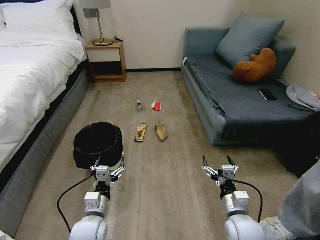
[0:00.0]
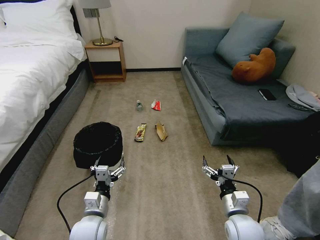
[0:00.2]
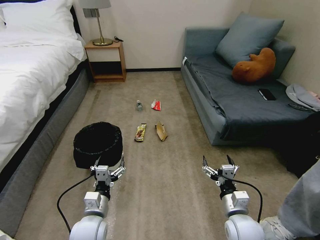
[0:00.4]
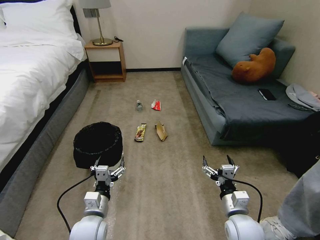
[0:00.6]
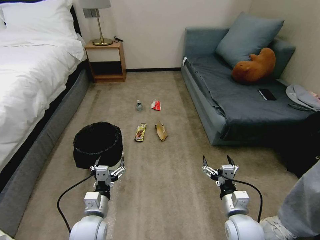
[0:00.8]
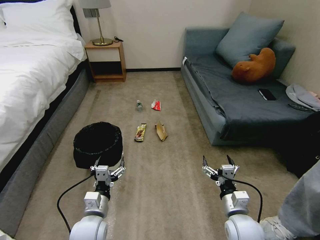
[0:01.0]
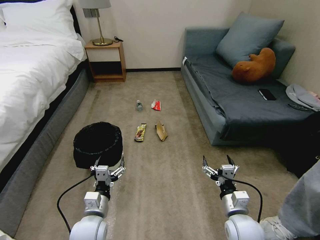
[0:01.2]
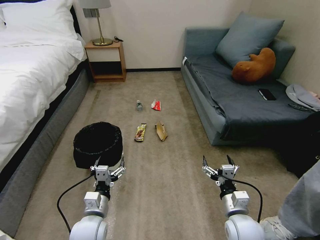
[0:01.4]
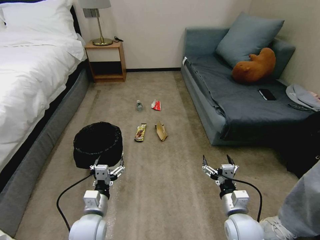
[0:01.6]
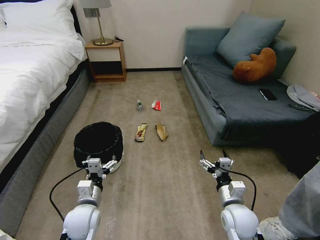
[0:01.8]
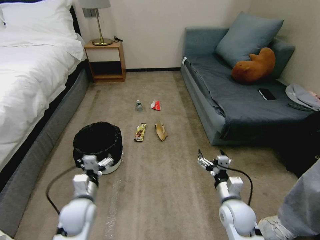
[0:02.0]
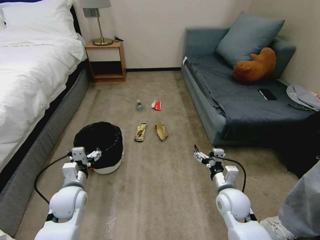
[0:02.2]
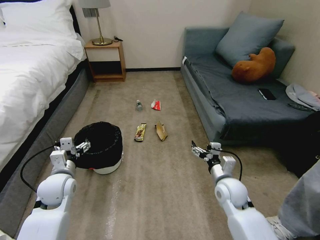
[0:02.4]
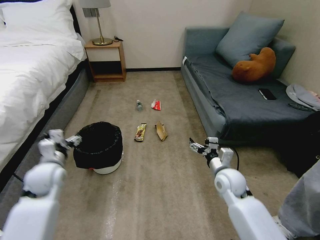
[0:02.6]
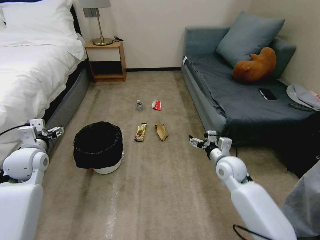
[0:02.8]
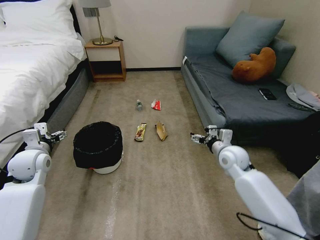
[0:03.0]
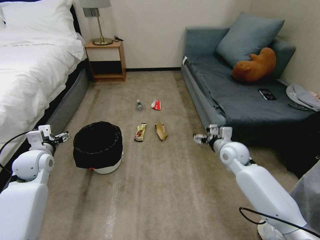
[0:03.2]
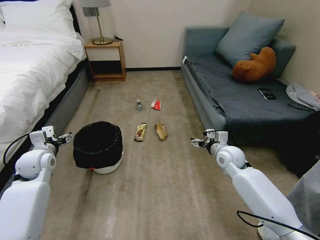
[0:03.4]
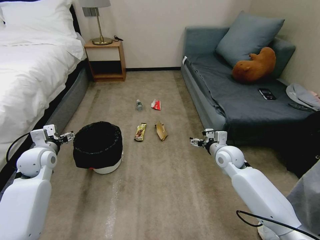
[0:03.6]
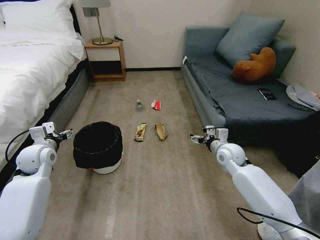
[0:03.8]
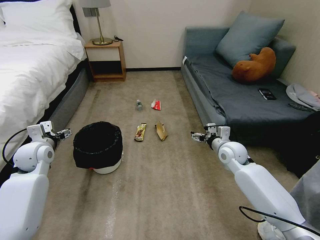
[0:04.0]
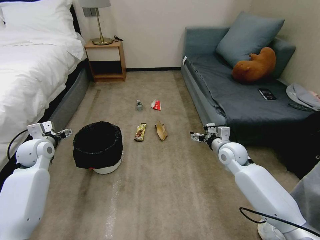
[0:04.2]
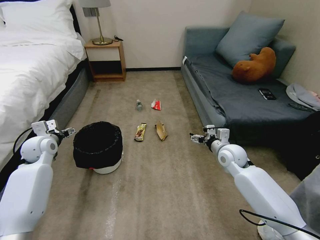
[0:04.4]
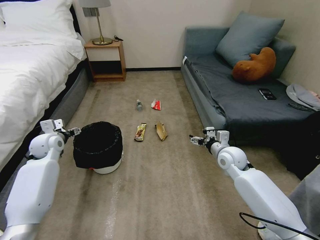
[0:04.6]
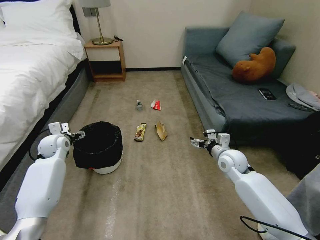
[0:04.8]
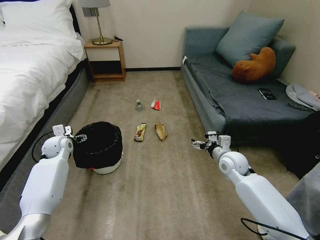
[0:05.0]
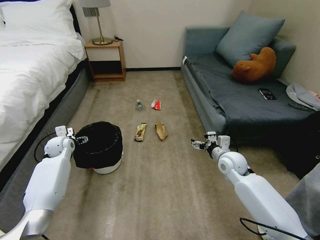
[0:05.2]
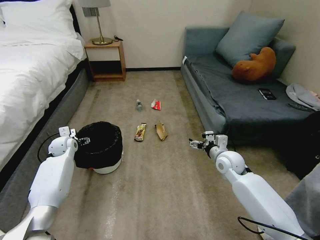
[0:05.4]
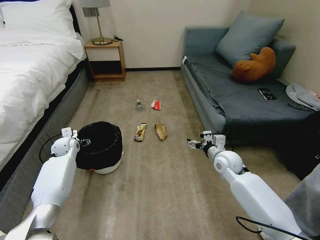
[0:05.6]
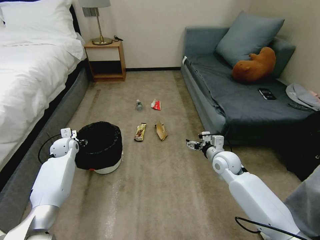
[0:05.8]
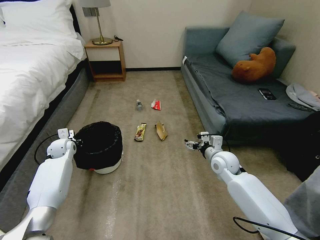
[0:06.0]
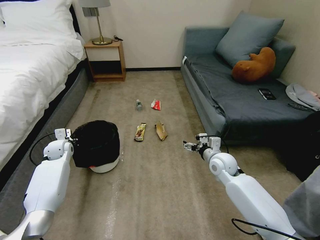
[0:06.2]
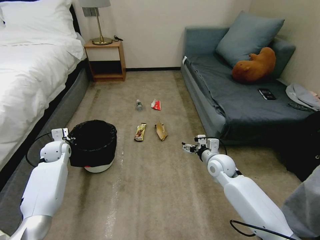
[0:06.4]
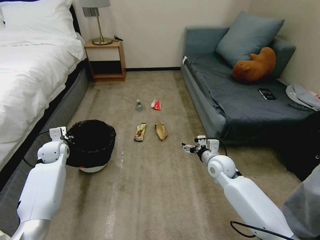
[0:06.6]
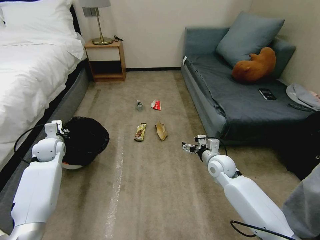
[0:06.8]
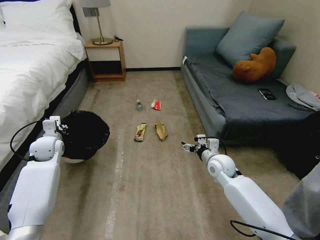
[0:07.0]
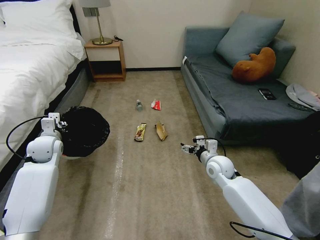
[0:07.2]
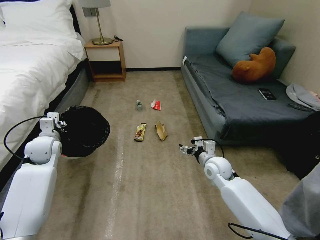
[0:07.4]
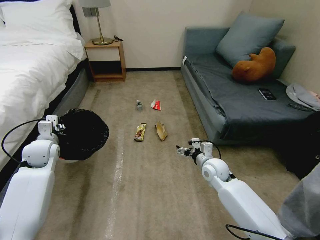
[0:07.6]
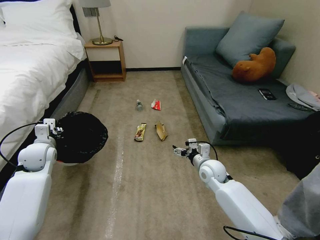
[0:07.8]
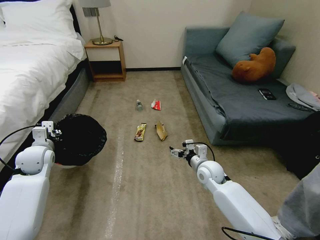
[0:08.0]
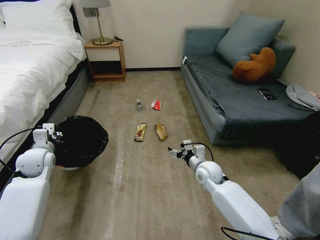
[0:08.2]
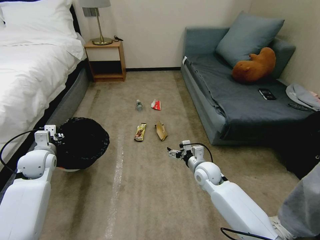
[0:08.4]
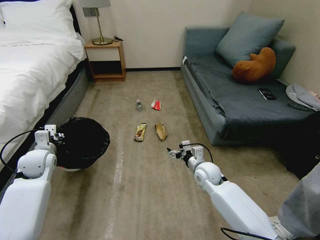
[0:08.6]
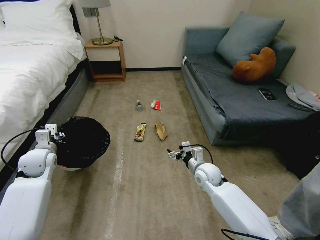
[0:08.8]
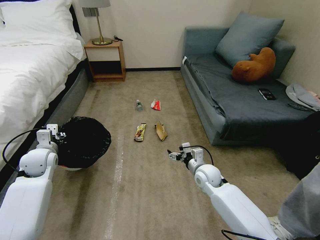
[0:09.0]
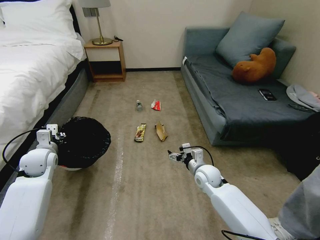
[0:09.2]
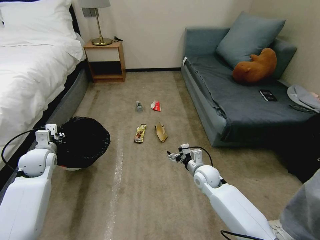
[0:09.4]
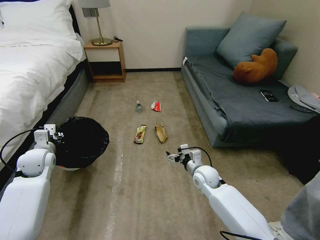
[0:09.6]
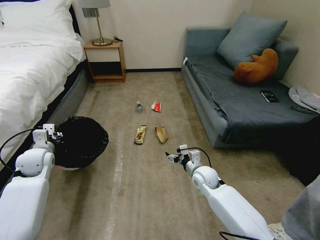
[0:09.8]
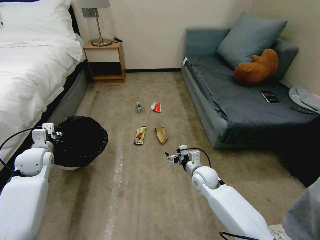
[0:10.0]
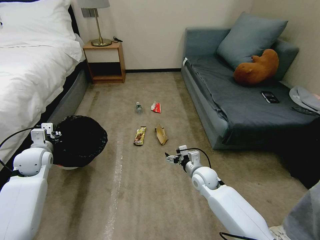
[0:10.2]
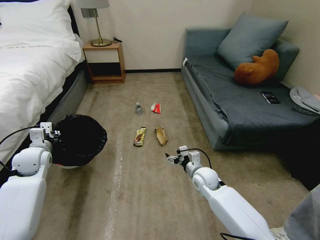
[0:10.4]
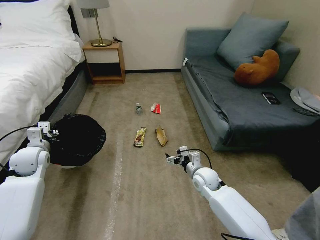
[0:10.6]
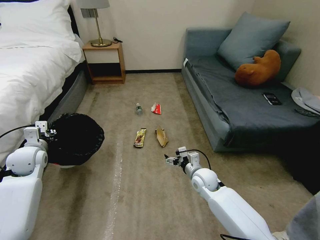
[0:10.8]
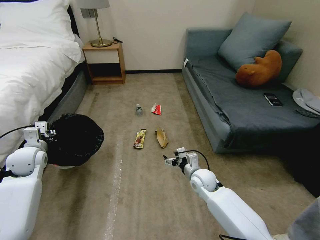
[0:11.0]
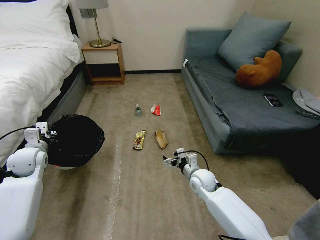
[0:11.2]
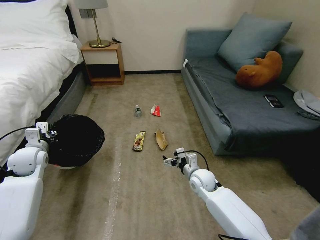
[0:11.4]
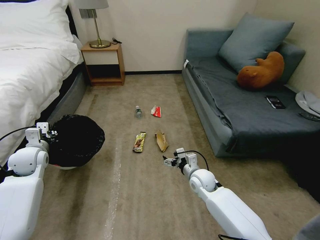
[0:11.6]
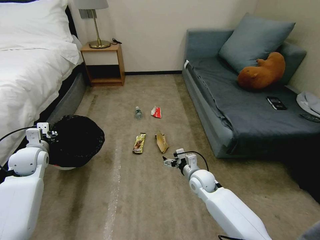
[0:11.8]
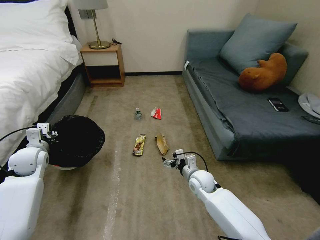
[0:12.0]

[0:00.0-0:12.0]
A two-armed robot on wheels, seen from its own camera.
Task of the whole recording: Pick up the trash bin, then pick up the garbage on the floor and place it into the trash bin.
0:01.6 to 0:03.0: The right gripper heads forward, covering roughly 20 cm. The left gripper travels to the left, forward and upward by some 30 cm.
0:03.0 to 0:04.4: The left gripper goes some 5 cm forward.
0:04.4 to 0:06.0: The left gripper is displaced downward and forward by approximately 10 cm, and closes.
0:06.0 to 0:07.6: The left gripper heads upward and backward, covering some 10 cm.
0:07.6 to 0:10.4: The grippers stay close to where they were, moving slightly.
0:10.4 to 0:12.0: The grippers stay close to where they were, moving slightly.

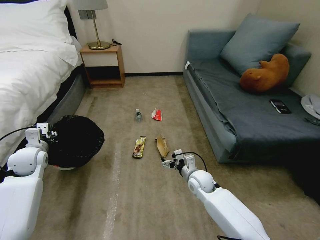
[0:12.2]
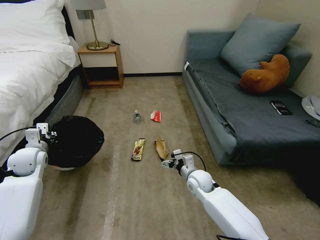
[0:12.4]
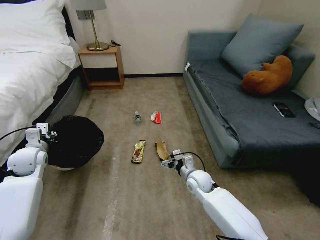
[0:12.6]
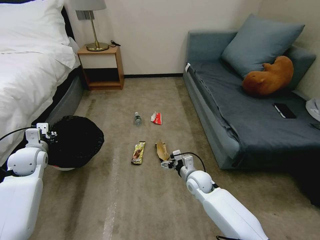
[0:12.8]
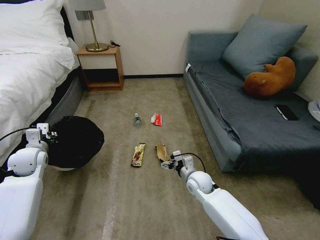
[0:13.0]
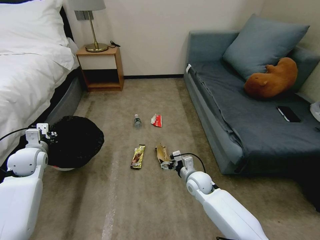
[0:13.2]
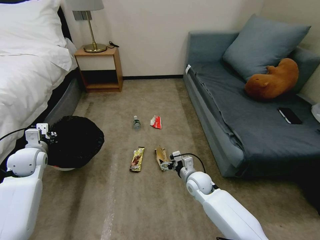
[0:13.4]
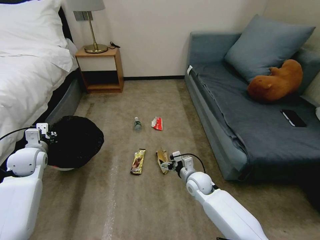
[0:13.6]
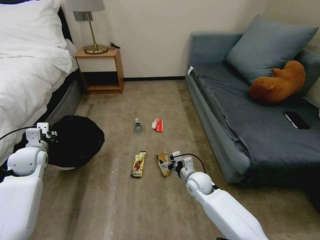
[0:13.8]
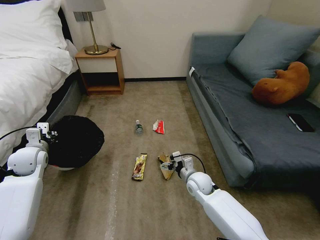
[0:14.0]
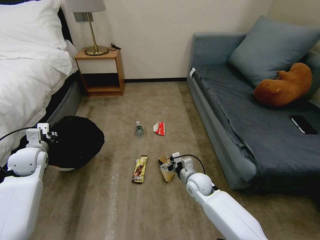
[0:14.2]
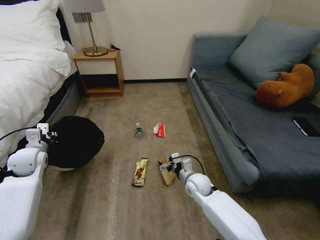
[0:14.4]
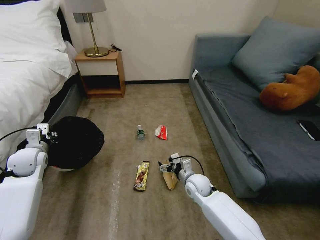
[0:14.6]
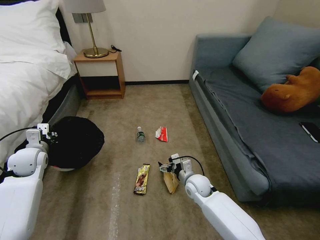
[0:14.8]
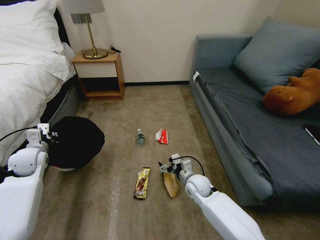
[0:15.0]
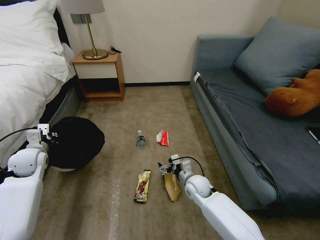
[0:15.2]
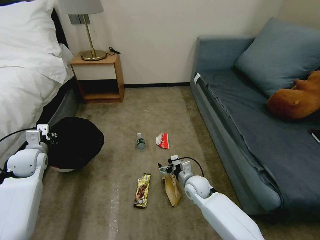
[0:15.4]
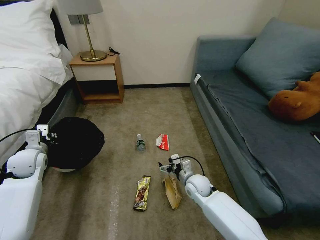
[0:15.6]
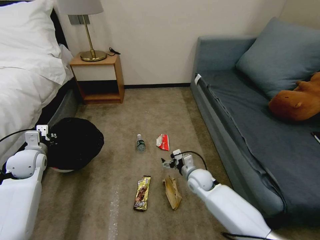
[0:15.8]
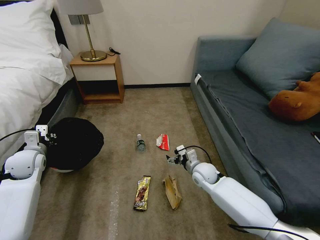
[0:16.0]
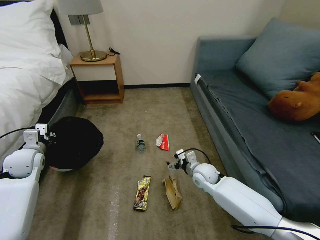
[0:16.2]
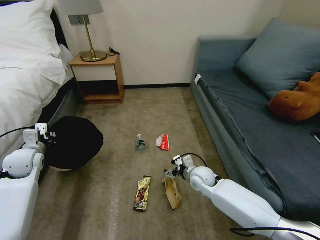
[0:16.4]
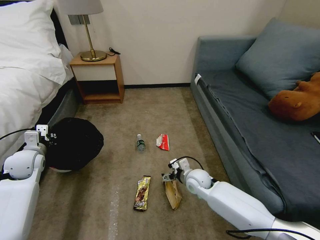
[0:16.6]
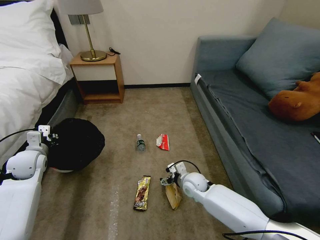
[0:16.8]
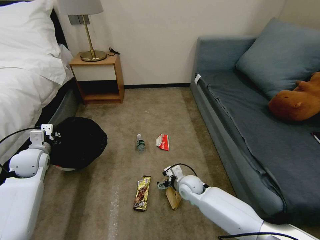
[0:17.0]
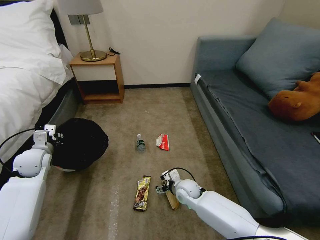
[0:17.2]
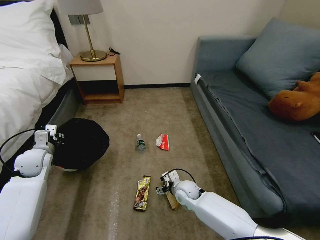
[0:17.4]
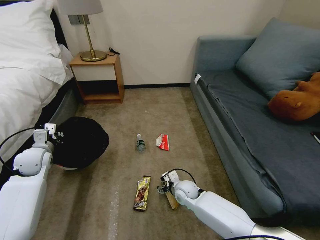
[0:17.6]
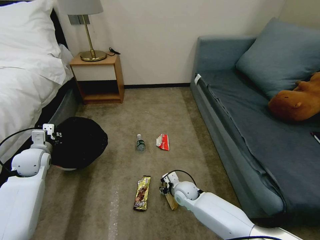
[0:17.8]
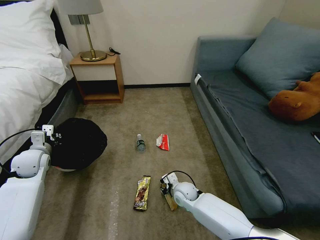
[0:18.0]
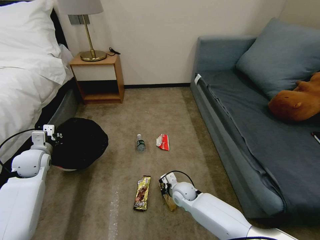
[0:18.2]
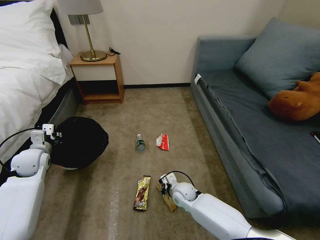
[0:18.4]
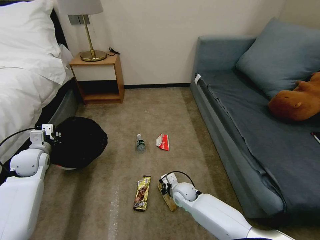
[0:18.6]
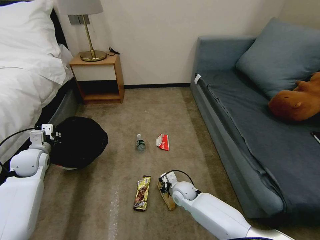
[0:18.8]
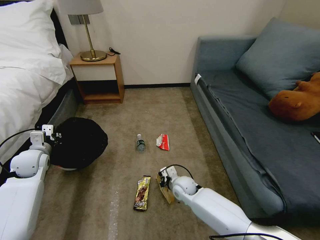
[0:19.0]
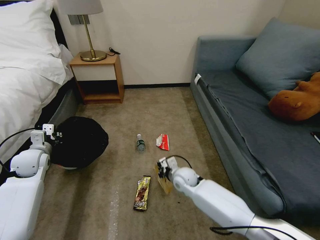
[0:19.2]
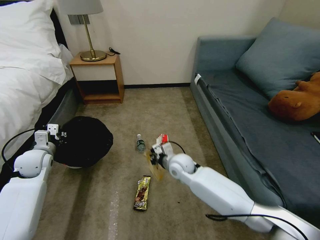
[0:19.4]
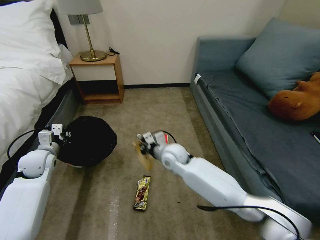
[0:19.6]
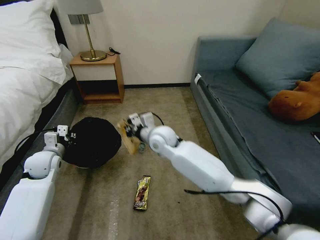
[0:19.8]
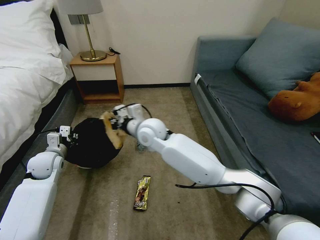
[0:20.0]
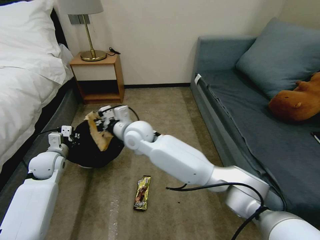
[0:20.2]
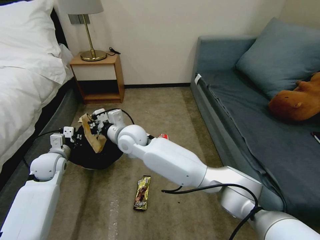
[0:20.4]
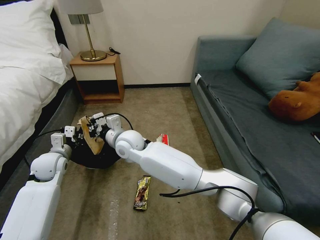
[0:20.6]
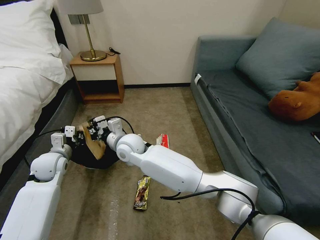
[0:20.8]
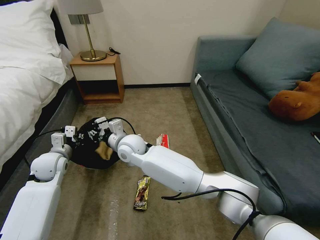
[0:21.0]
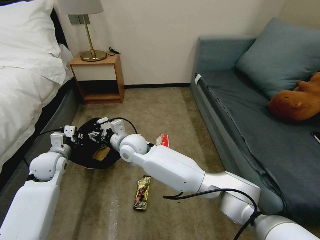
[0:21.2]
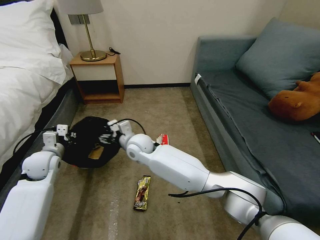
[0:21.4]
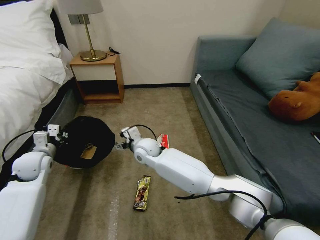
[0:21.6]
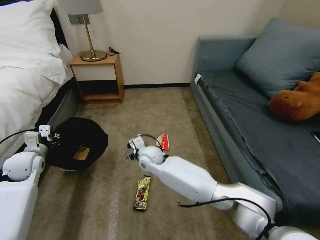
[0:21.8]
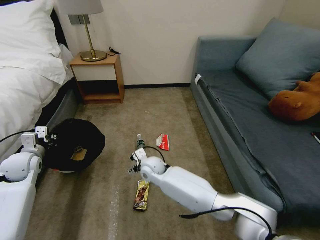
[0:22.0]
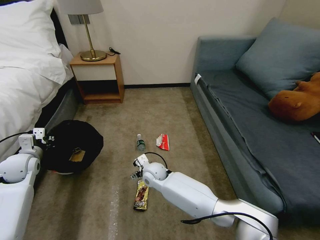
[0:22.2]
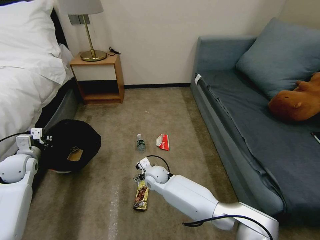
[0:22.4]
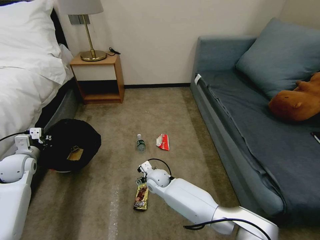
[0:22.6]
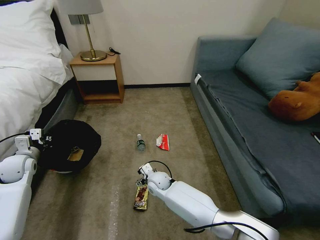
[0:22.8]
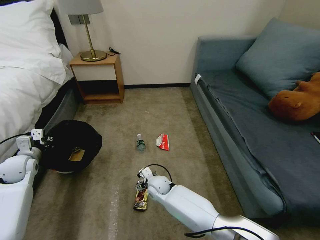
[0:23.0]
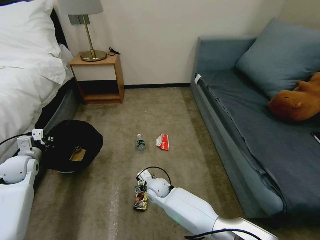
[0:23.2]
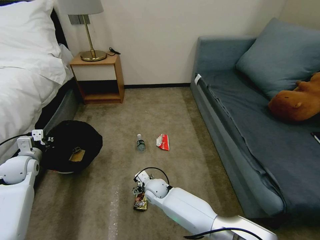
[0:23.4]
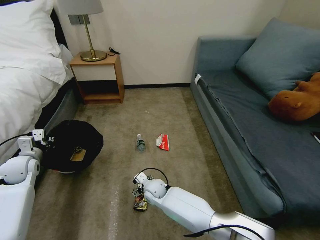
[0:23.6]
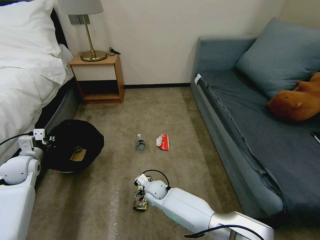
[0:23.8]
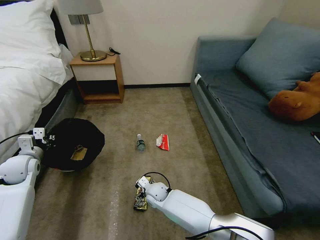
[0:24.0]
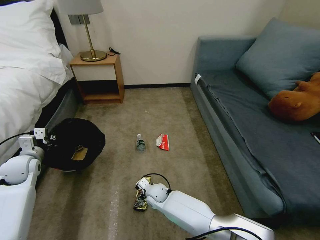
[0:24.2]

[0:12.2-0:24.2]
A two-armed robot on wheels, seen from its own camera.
Task of the whole recording: Pick up the trash bin, then pick up the garbage on the floor and place it into the trash bin.
0:15.2 to 0:16.6: The grippers move only a little.
0:16.6 to 0:18.2: The right gripper moves downward and to the left, some 10 cm, and closes.
0:18.2 to 0:19.8: The right gripper heads upward, covering about 25 cm.
0:19.8 to 0:21.2: The right gripper moves to the left, approximately 10 cm, and opens.
0:21.2 to 0:22.6: The left gripper travels to the left by approximately 10 cm, while the right gripper moves downward and to the right, about 20 cm, and opens its fingers.
0:22.6 to 0:24.2: The right gripper shifts roughly 5 cm downward.
